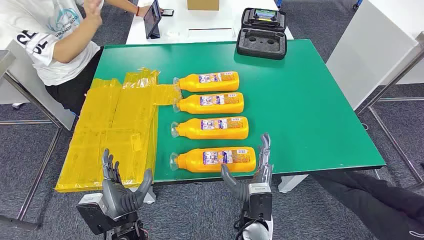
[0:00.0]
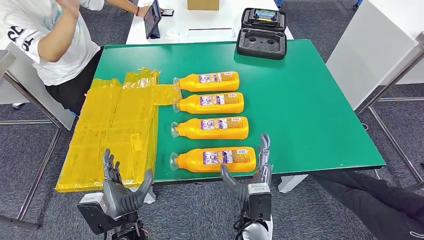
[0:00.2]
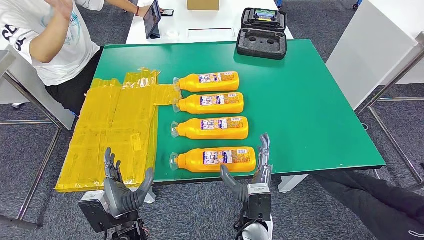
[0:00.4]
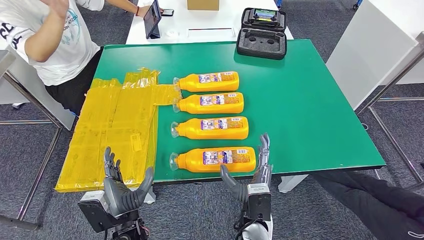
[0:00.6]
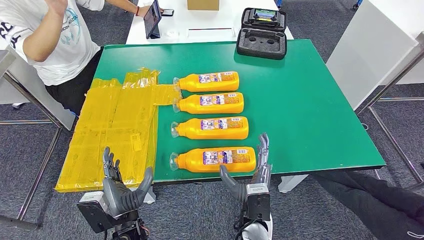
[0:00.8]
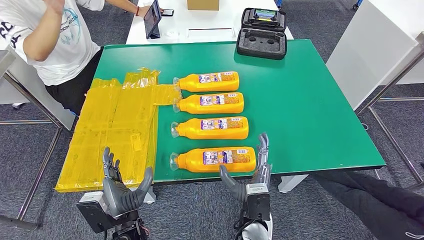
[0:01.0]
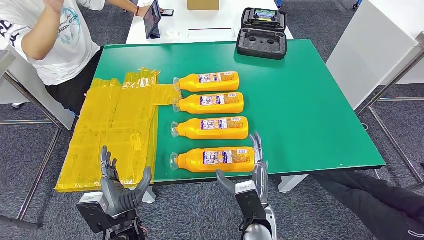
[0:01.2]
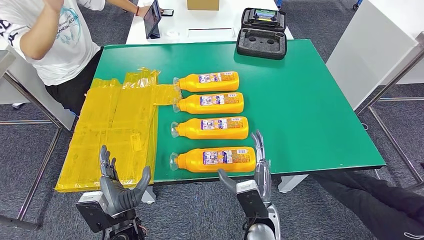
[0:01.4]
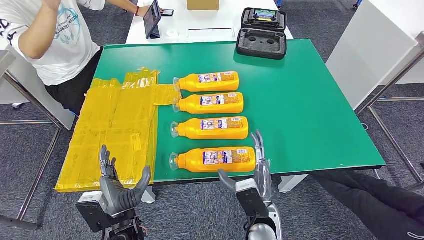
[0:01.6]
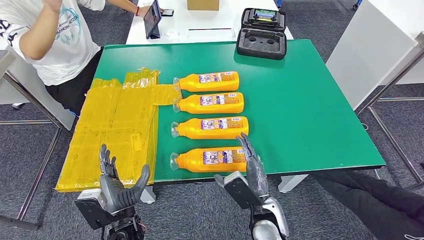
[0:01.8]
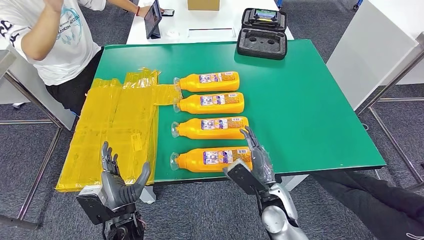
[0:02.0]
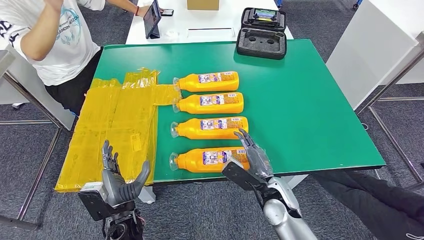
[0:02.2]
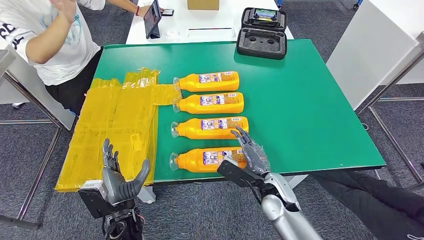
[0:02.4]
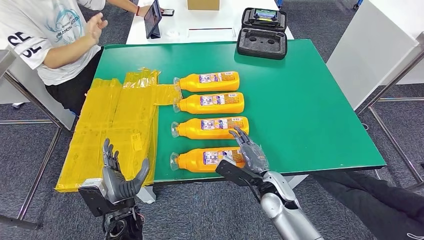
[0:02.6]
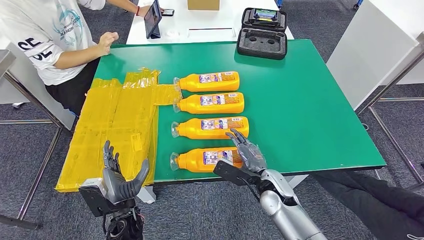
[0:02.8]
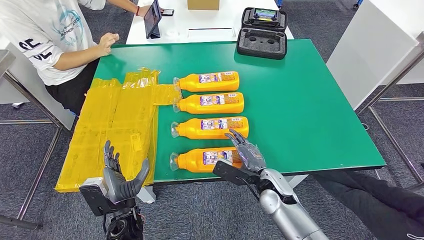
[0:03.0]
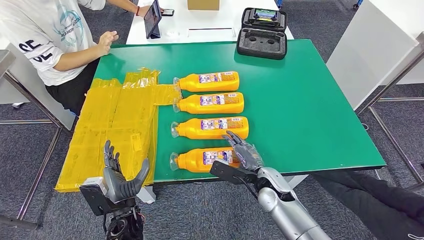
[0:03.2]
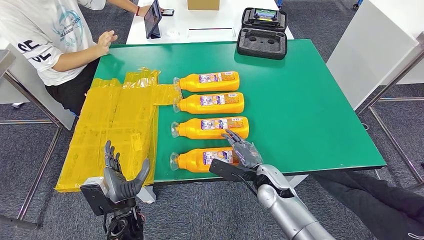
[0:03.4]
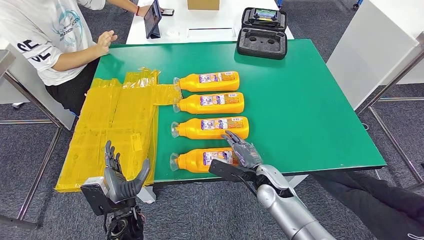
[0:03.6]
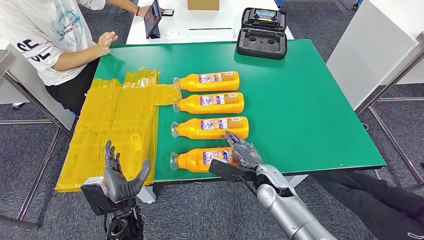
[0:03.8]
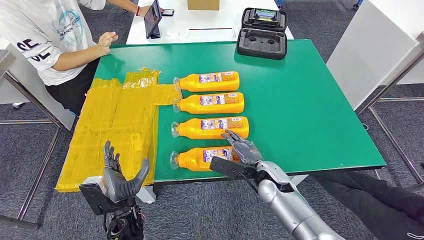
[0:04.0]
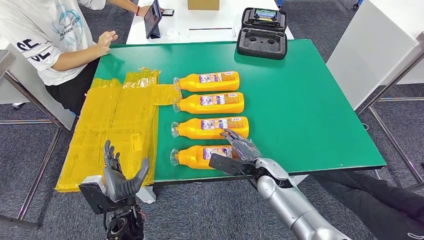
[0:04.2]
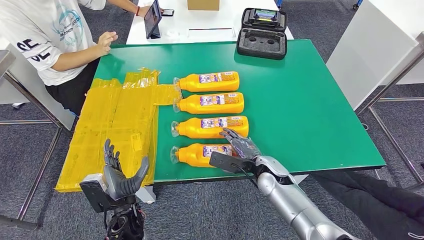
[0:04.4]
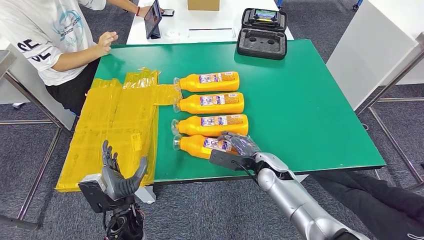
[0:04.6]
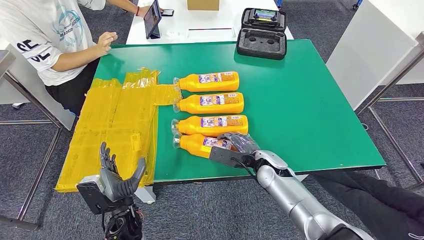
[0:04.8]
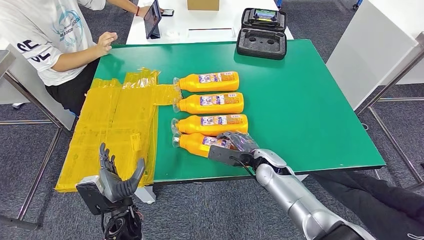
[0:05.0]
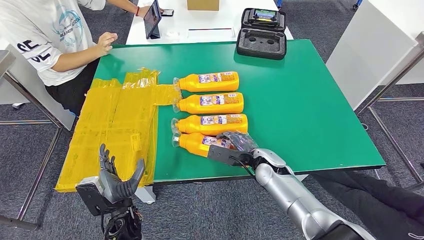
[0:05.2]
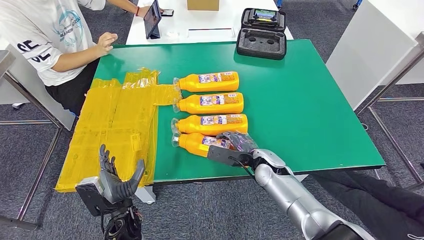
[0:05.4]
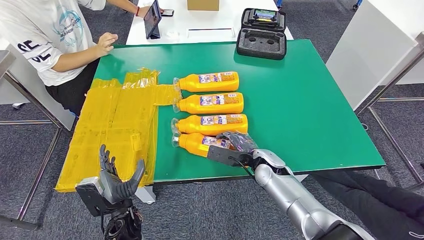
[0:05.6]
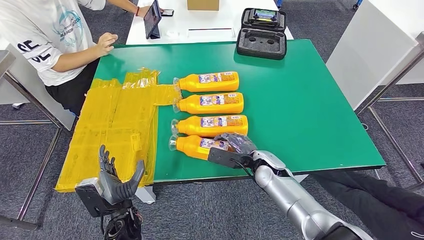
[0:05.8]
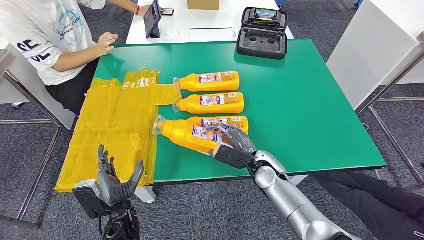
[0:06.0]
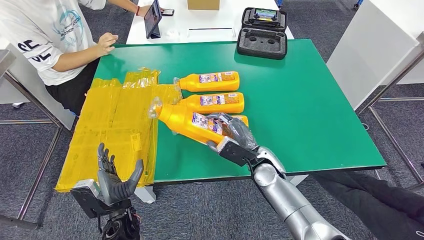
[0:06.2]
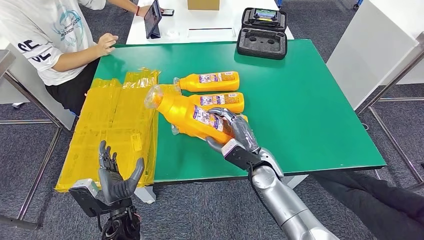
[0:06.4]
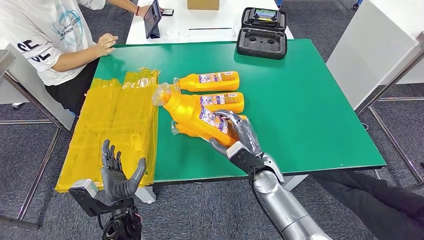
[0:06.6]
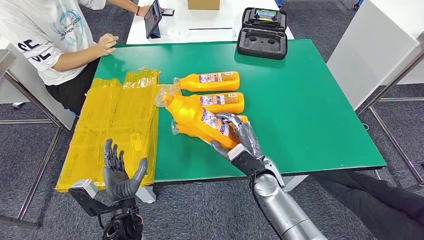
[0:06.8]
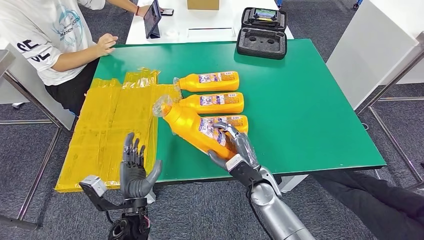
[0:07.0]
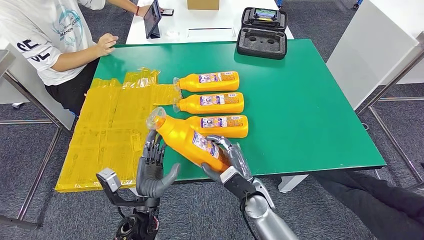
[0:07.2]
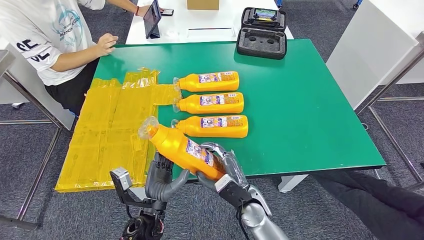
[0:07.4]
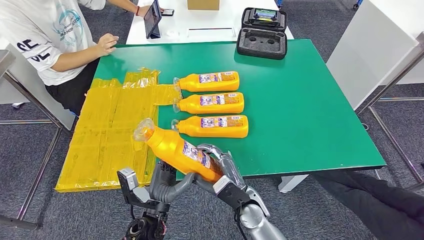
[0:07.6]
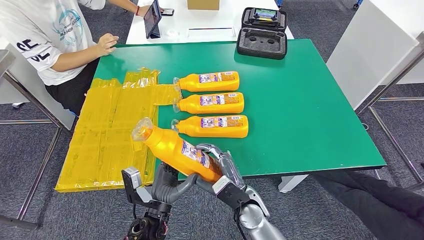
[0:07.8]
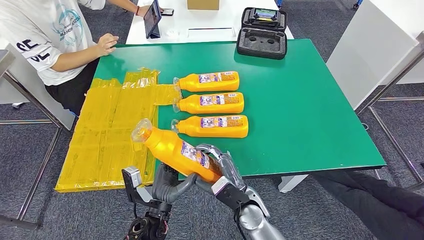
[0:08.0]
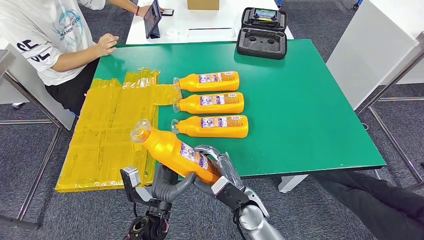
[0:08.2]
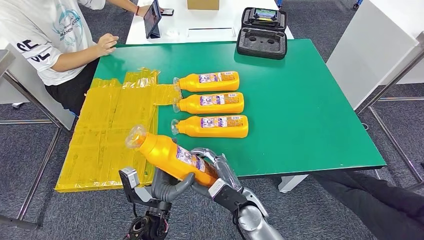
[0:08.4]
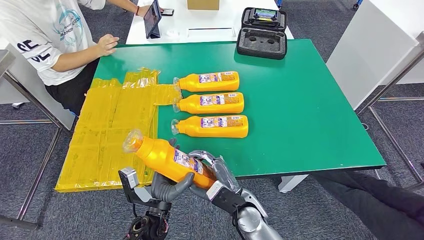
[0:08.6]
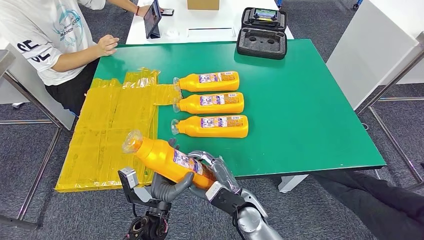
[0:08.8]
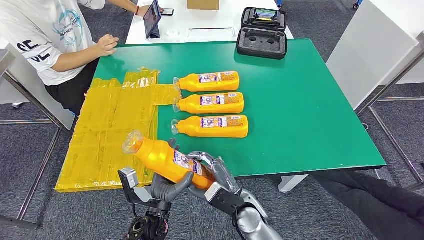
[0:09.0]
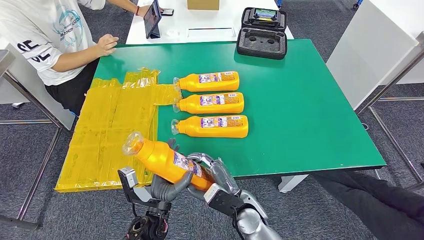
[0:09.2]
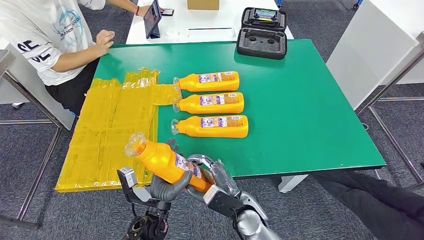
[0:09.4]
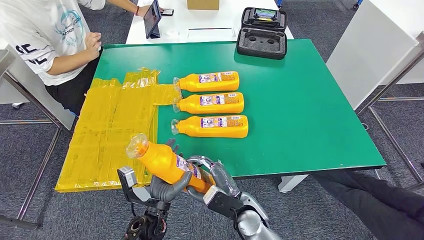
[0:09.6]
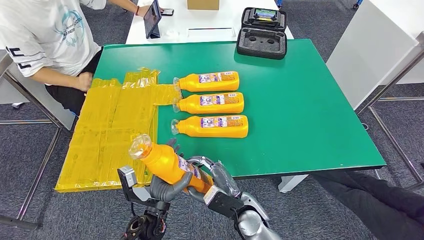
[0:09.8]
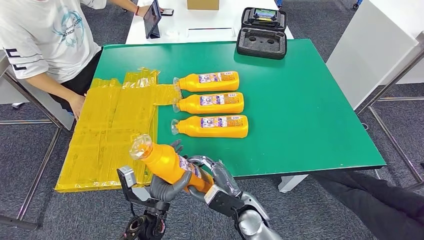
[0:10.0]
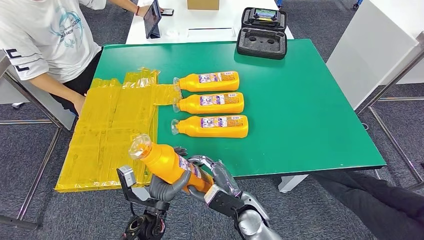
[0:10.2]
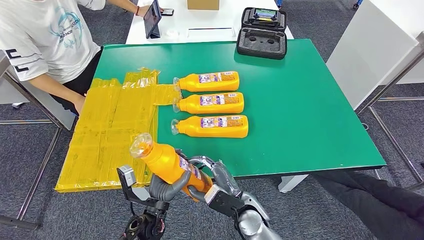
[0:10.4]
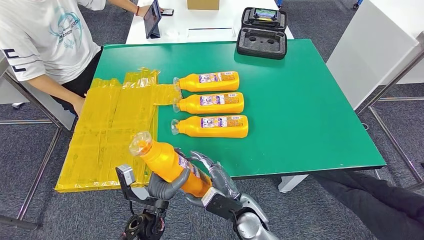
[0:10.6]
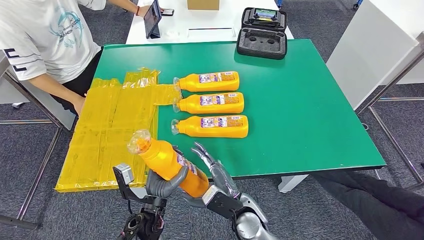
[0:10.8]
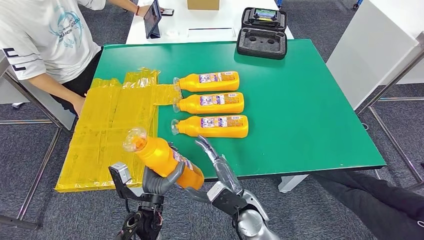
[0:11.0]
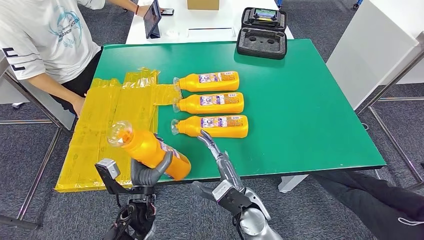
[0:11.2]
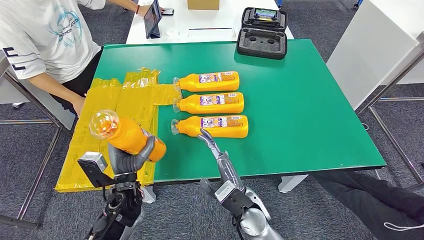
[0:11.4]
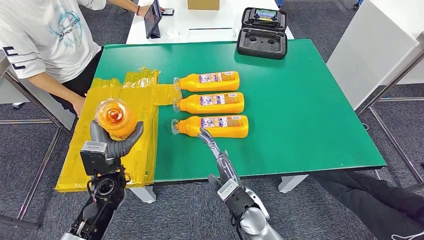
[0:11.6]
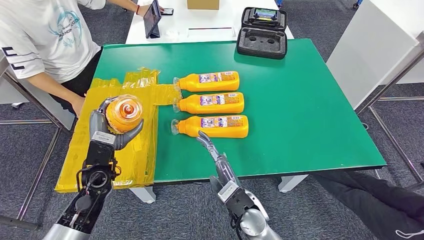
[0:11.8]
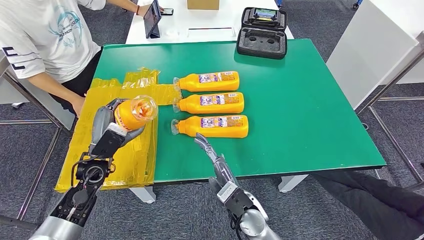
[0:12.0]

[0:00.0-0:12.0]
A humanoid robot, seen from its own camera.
Step, 0:00.0 to 0:07.2: Take the fast-moving consumer goods bottle from the table.
0:01.6 to 0:03.0: The right hand shifts some 10 cm forward.
0:03.0 to 0:04.4: There are only small adjustments of the hands.
0:06.0 to 0:07.6: The right hand goes approximately 10 cm backward and to the left. The left hand is displaced to the right by some 5 cm.
0:07.6 to 0:09.0: The hands make only small movements.
0:09.0 to 0:10.4: Neither hand changes place.
0:10.4 to 0:12.0: The left hand travels to the left, forward and upward by about 20 cm.

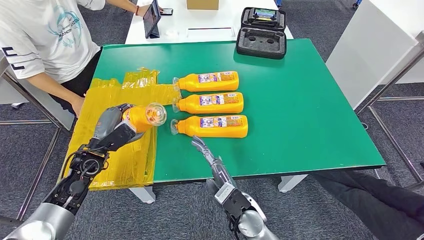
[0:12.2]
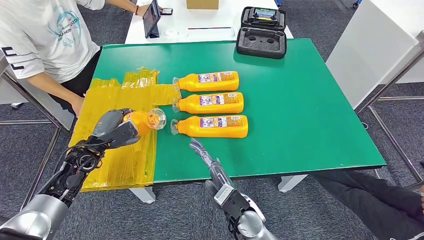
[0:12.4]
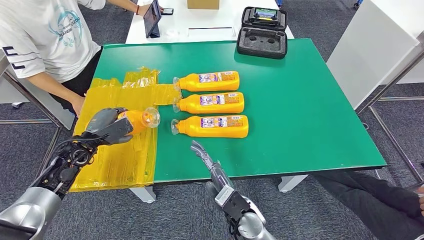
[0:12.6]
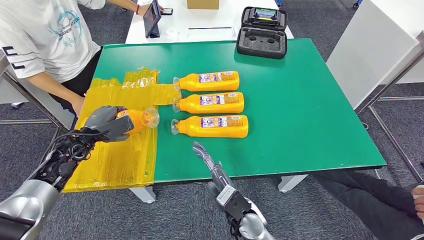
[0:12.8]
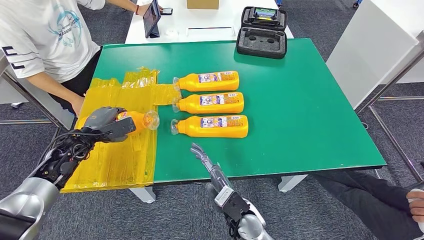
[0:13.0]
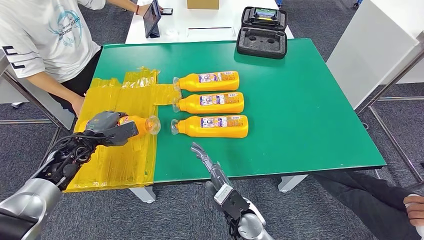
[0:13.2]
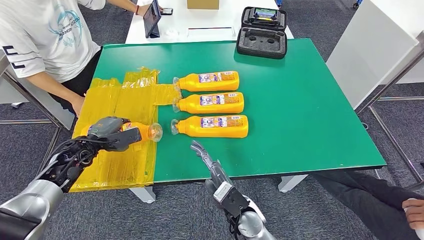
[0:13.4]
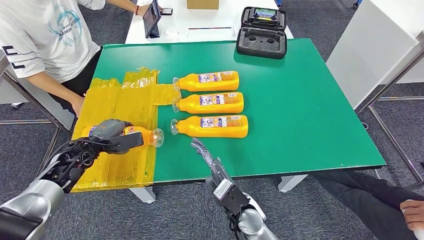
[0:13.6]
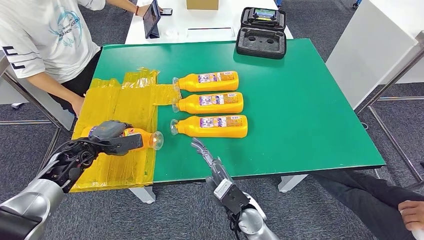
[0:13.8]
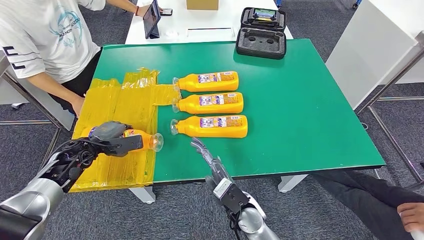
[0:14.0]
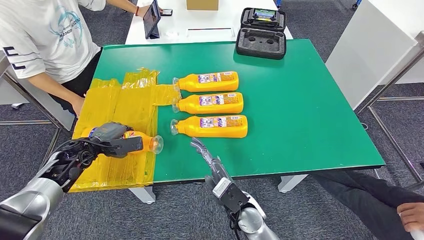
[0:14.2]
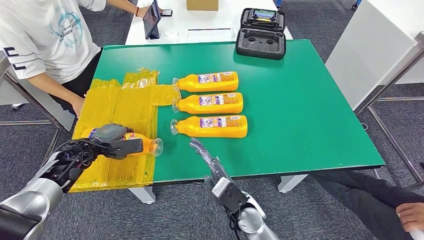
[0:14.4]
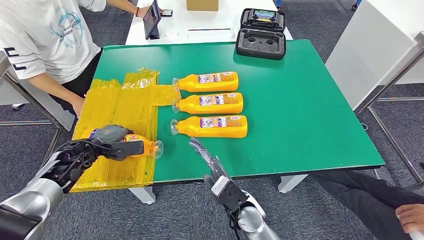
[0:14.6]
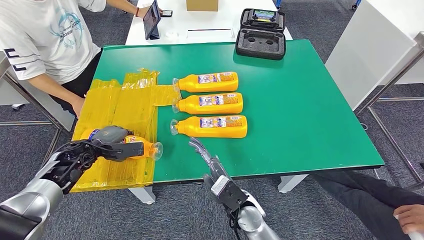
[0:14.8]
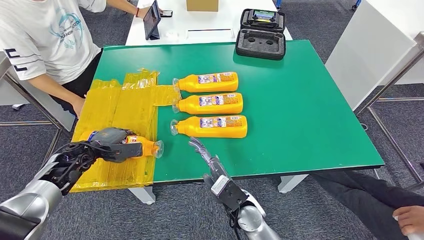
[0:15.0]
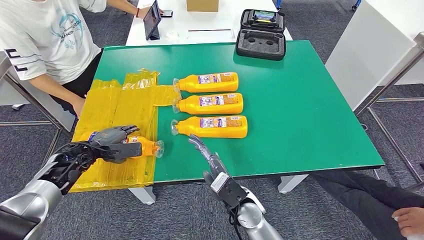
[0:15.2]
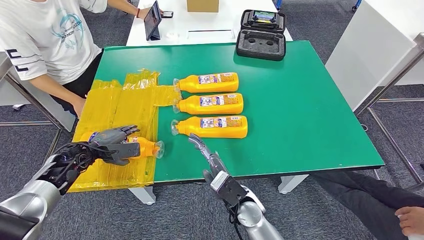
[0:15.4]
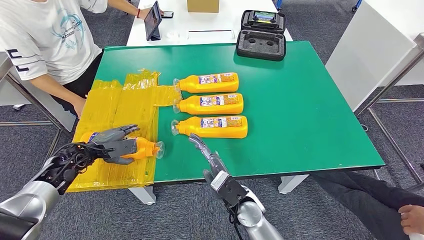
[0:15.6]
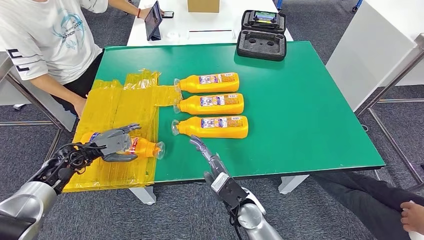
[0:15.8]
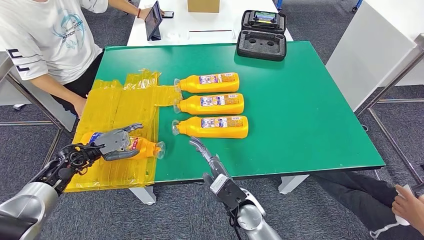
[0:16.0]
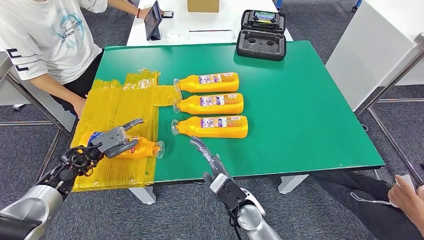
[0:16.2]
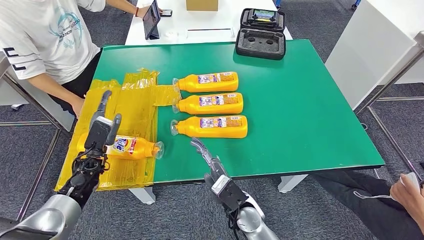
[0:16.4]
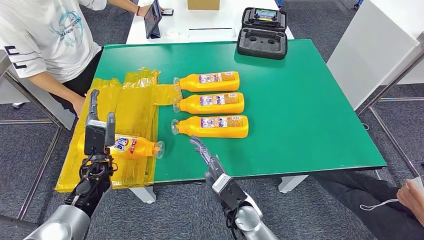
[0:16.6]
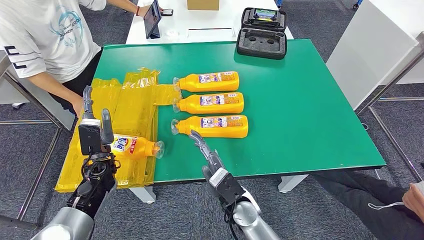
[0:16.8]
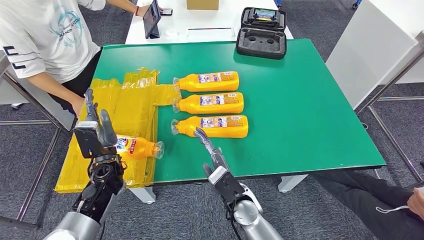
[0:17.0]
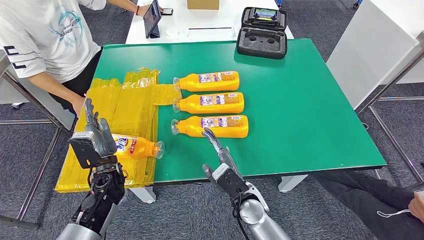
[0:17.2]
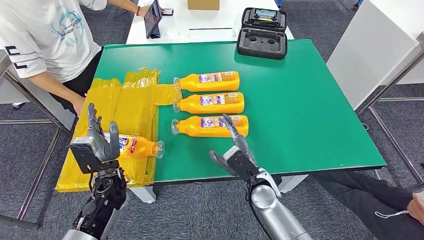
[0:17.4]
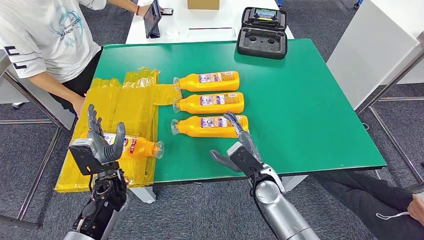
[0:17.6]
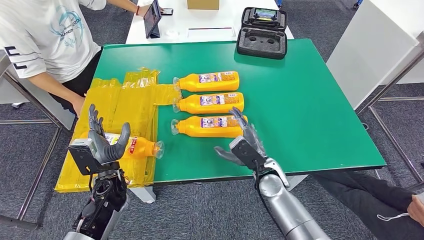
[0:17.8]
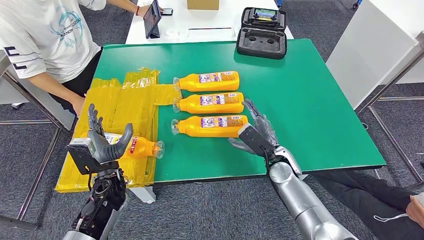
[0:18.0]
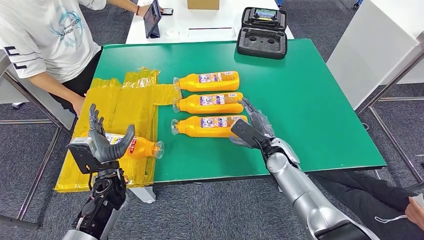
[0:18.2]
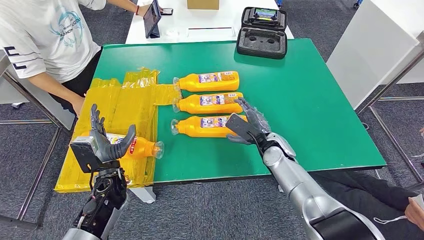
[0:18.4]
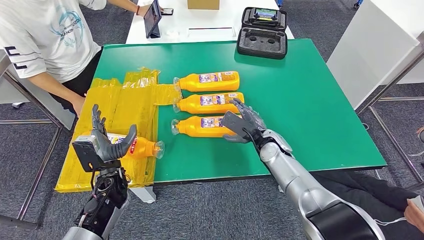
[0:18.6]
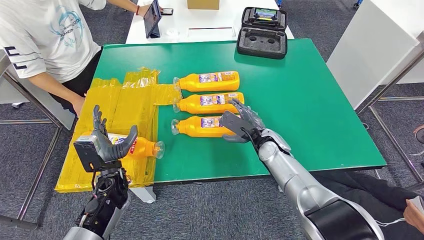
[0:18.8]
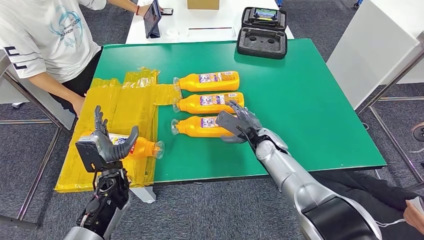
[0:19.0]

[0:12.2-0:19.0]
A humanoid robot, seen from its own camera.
Step, 0:12.2 to 0:15.6: Flip the fast-moving consumer goods bottle to the front side.
0:12.2 to 0:13.6: The left hand ends up roughly 5 cm from where it was.
0:13.6 to 0:15.0: There are only small adjustments of the hands.
0:17.6 to 0:19.0: The right hand moves forward, about 10 cm.
